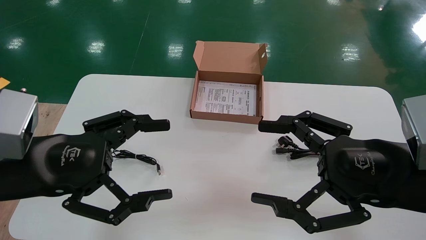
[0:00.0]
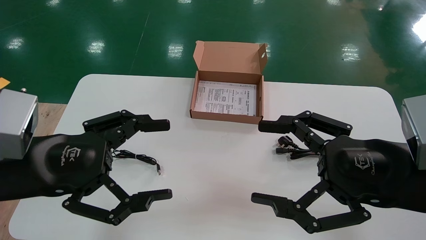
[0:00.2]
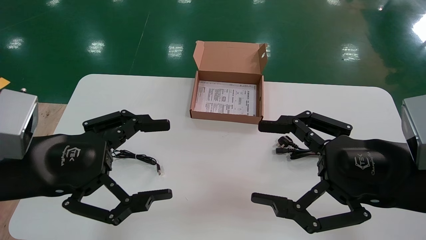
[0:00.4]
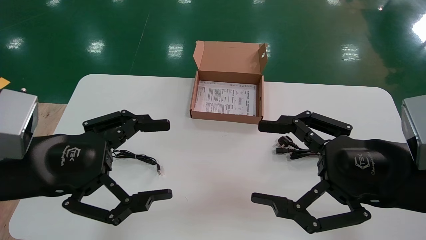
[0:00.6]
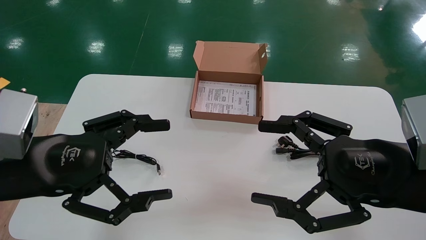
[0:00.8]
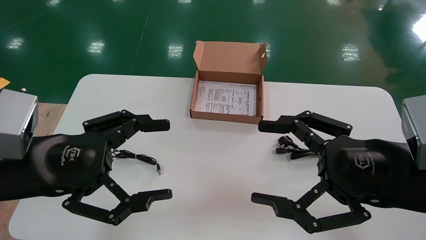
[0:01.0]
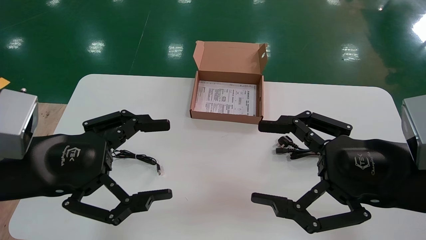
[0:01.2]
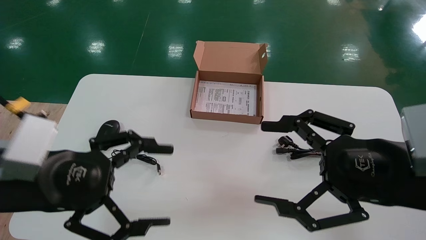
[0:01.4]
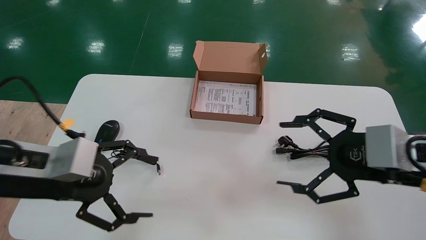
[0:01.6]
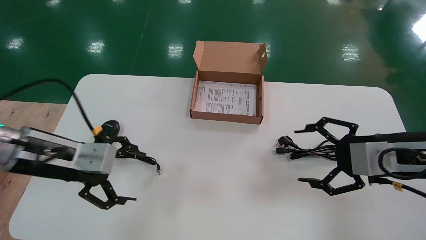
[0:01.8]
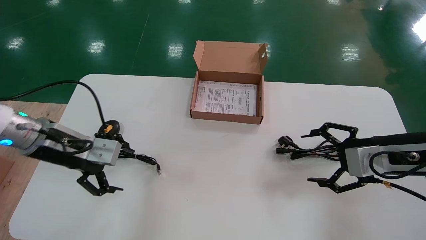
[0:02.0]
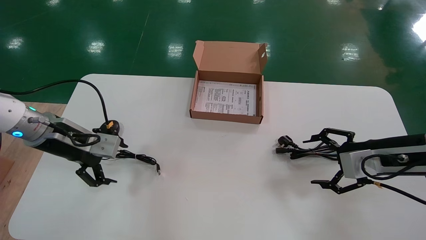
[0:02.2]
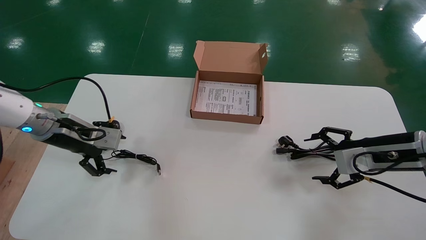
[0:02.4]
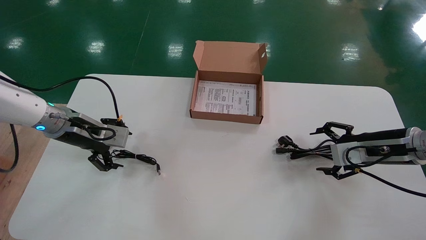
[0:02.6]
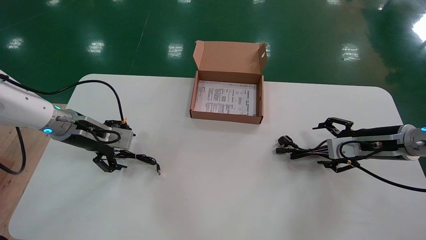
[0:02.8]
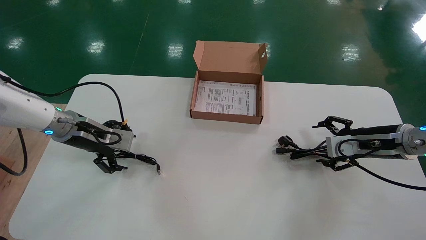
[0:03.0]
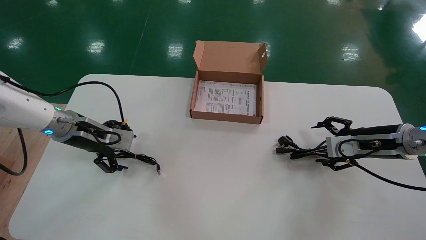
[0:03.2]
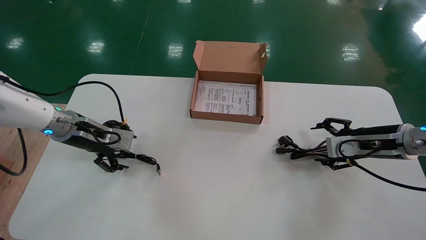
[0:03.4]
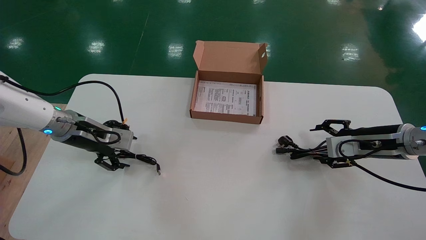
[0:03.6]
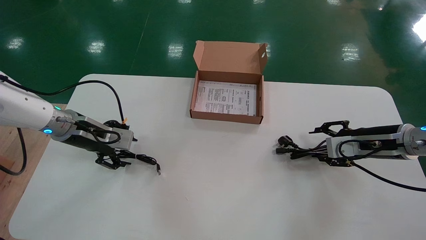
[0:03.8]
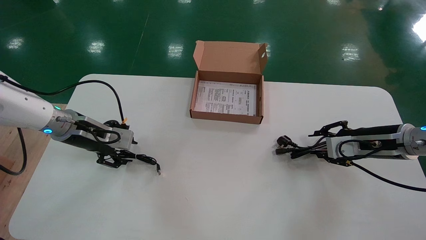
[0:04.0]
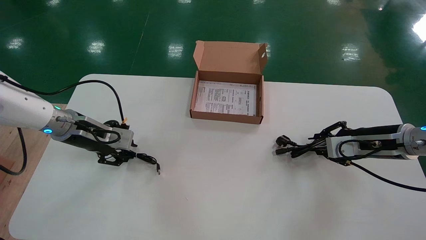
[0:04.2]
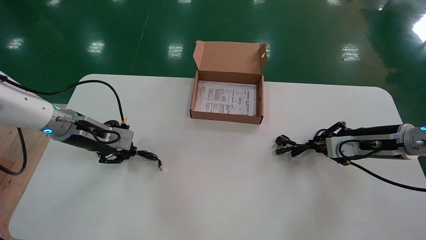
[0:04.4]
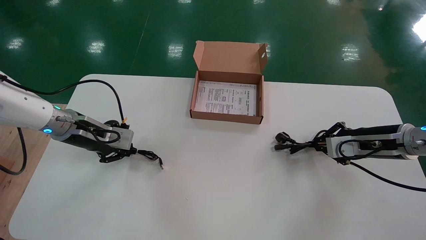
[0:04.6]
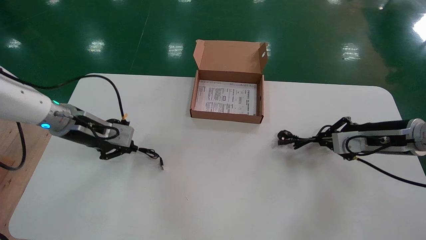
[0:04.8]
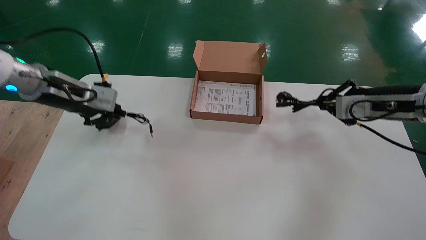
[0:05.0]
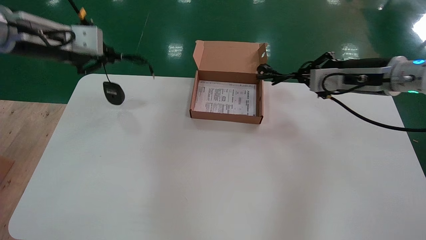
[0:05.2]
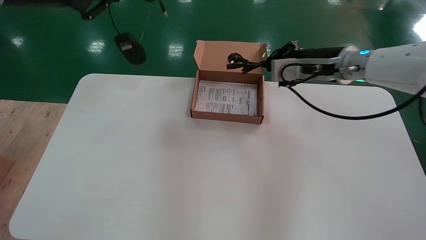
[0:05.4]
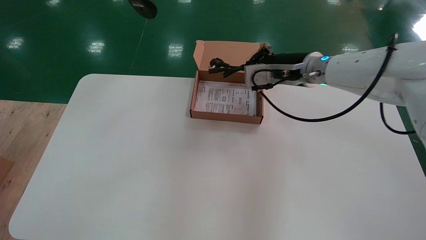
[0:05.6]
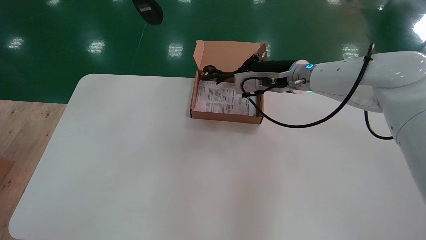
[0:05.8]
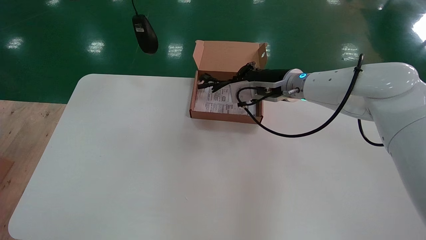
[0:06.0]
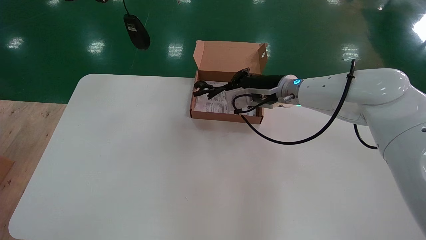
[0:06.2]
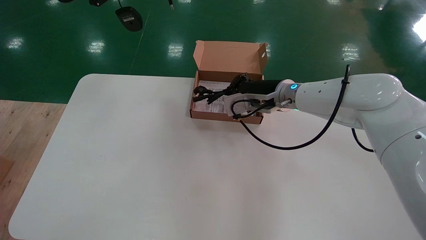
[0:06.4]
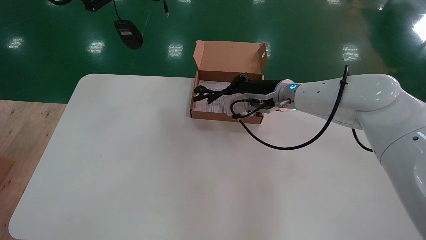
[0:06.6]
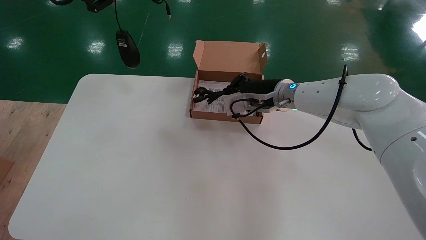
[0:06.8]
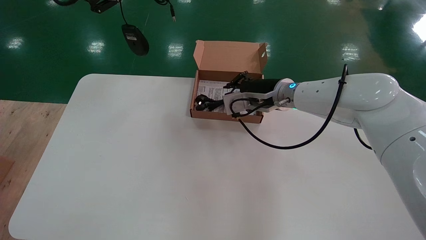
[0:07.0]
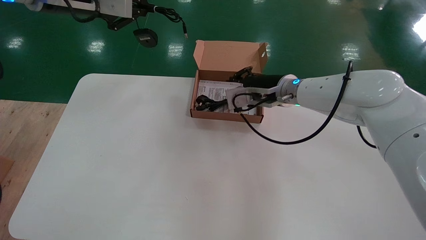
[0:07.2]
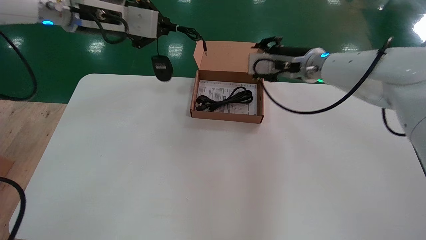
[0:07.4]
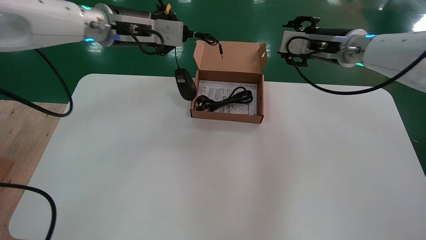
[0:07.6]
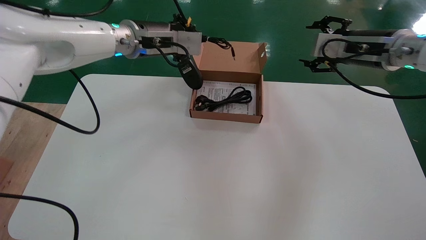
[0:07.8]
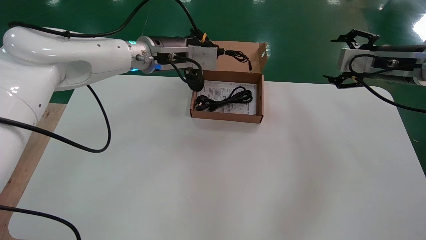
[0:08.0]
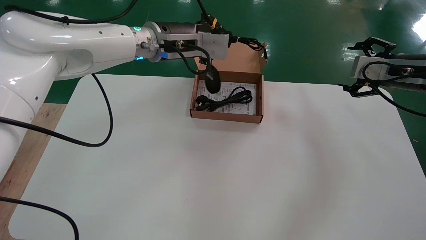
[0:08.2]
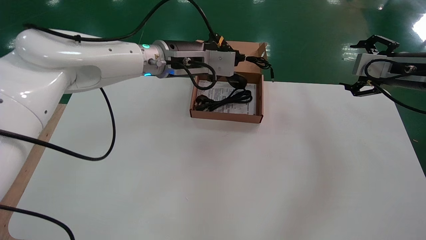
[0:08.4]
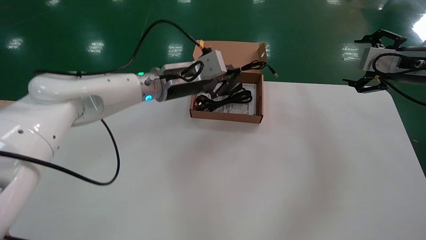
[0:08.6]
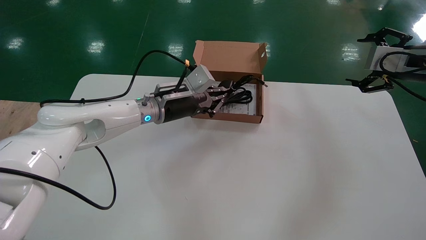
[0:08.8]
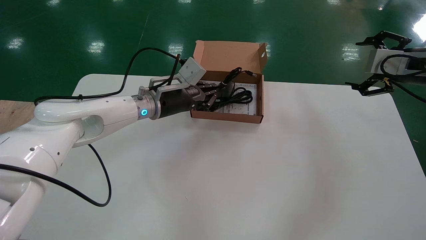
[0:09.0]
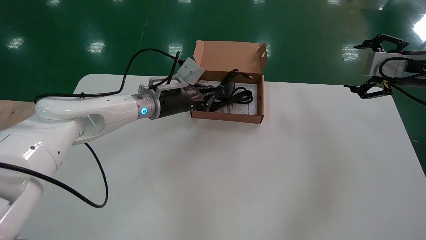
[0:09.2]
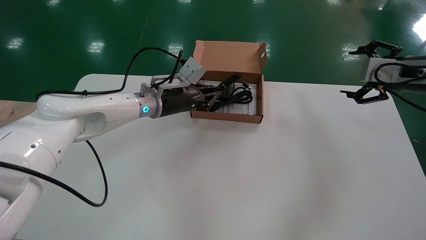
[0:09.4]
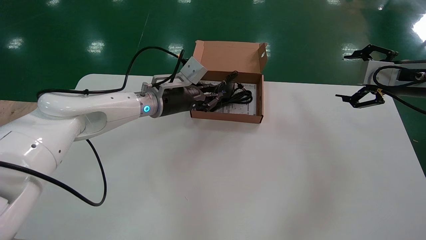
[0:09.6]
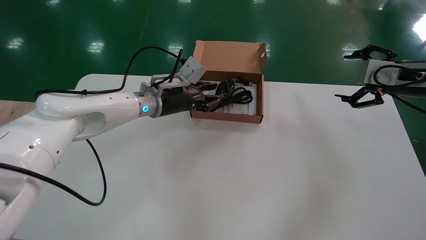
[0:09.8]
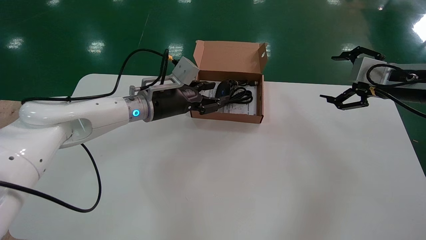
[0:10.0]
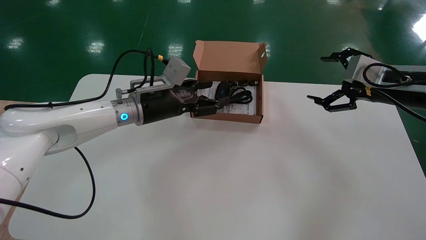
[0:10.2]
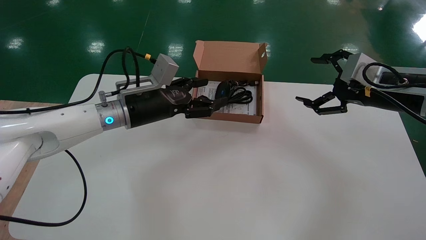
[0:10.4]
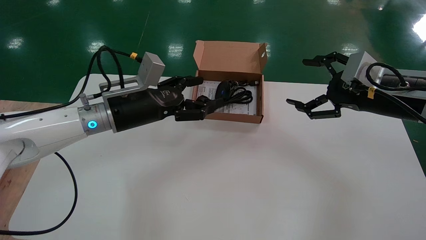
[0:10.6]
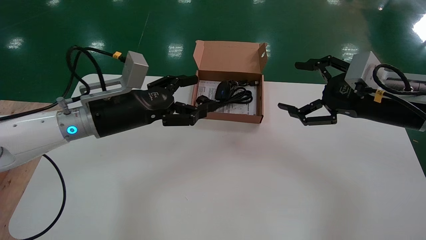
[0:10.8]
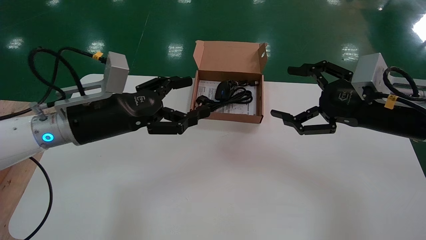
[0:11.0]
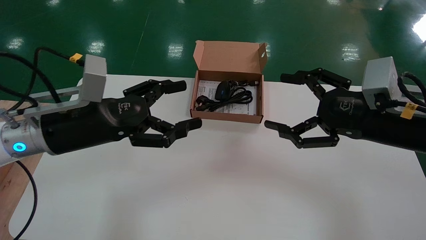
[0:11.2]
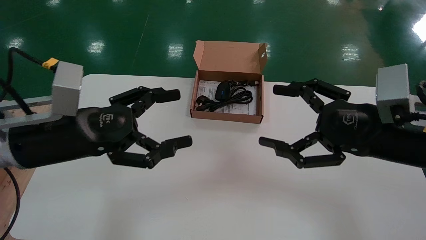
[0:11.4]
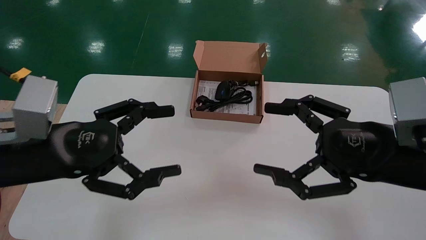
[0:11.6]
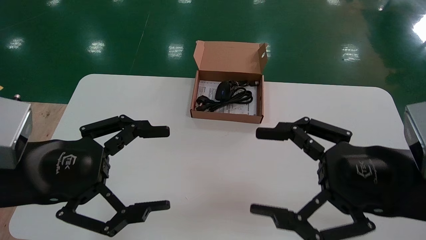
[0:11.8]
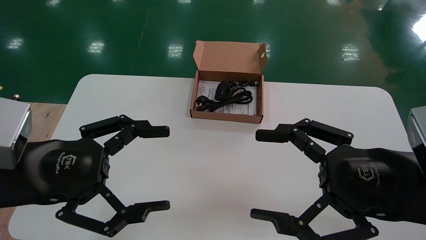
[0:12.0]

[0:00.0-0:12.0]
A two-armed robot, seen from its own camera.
Step, 0:01.4 to 0:04.6: Simultaneously pick up the mouse and power cord from the accessory packaging area.
Step, 0:04.8 to 0:10.2: Place the mouse and power cord into the box.
0:00.0 to 0:01.6: The two grippers go roughly 5 cm forward.
0:01.6 to 0:03.0: The left gripper goes about 15 cm forward. The right gripper is displaced forward and to the right by about 15 cm.
0:03.0 to 0:04.4: The right gripper closes its fingers; the left gripper closes its fingers.
0:04.4 to 0:06.0: The left gripper goes approximately 30 cm upward. The right gripper is displaced to the left and upward by roughly 25 cm.
0:06.0 to 0:07.6: The right gripper moves to the right and upward, roughly 15 cm, and opens up. The left gripper is displaced to the right, downward and forward by about 15 cm.
0:07.6 to 0:09.0: The right gripper heads to the right and backward, covering roughly 15 cm, and opens; the left gripper heads downward, covering approximately 15 cm.
0:09.0 to 0:10.4: The right gripper shifts roughly 5 cm to the left. The left gripper goes approximately 5 cm backward, and opens its fingers.
0:10.4 to 0:12.0: Both grippers move backward and to the left, approximately 20 cm.

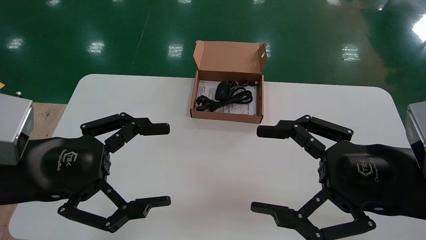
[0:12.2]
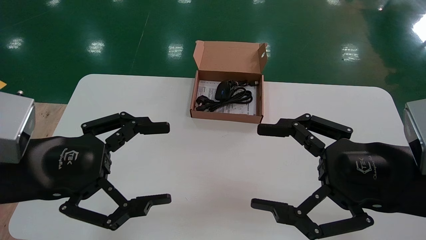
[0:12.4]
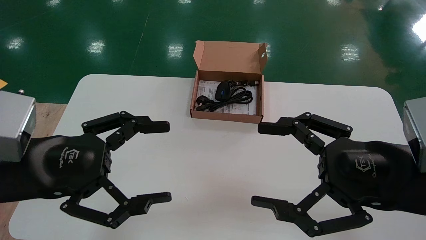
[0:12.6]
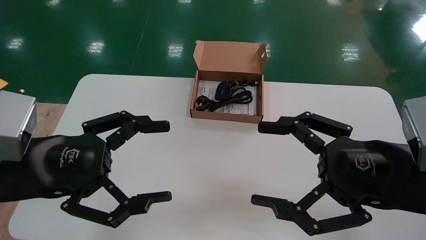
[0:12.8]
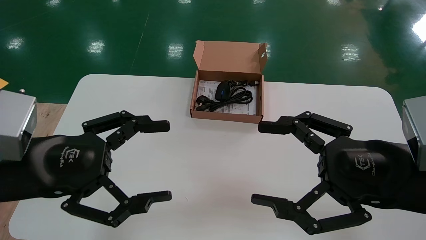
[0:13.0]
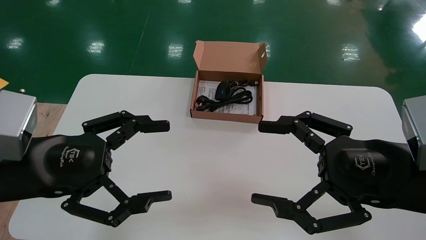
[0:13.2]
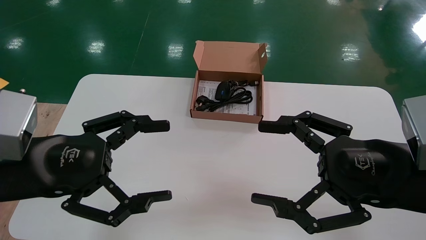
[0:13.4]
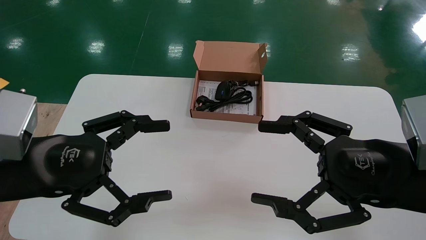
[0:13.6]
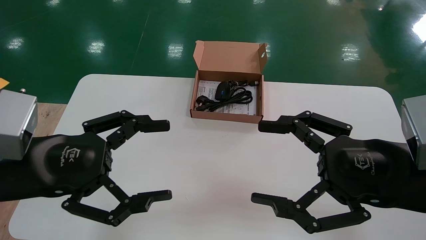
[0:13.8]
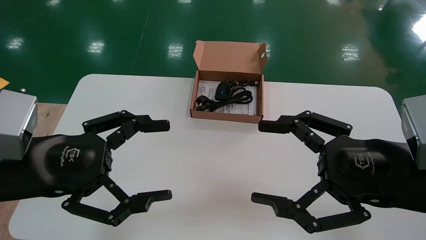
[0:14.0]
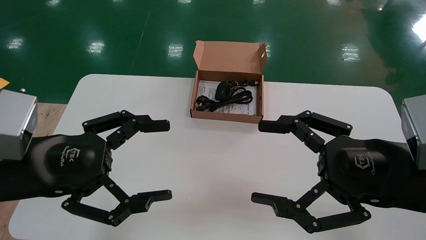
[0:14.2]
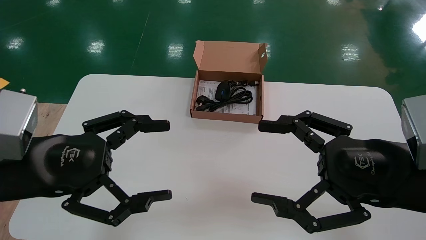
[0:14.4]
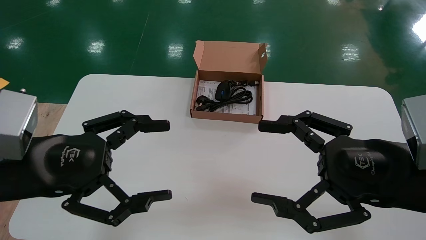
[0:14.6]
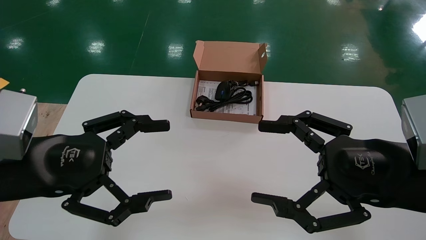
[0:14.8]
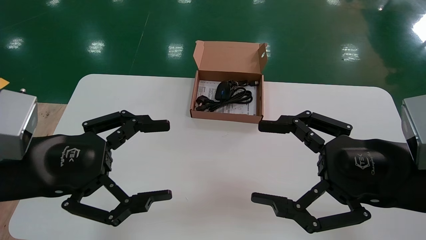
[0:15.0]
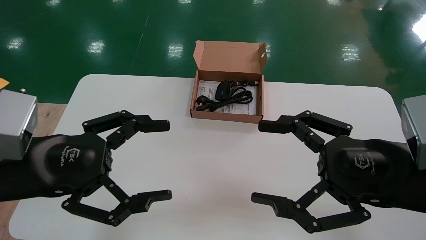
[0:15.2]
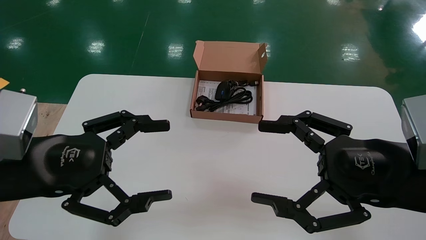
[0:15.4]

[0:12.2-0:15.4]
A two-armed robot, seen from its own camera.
0:12.2 to 0:15.4: Both grippers stay about where they are.
